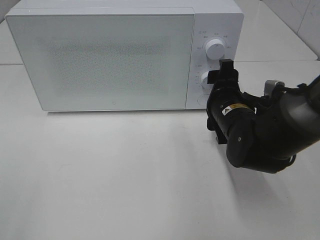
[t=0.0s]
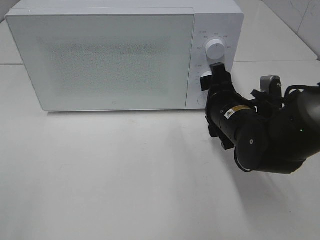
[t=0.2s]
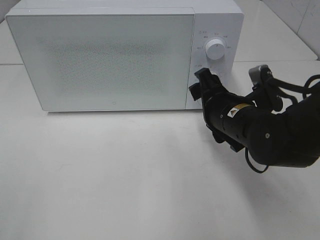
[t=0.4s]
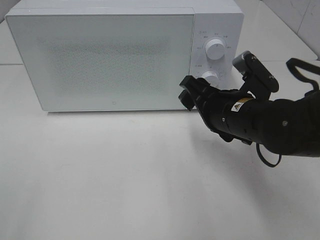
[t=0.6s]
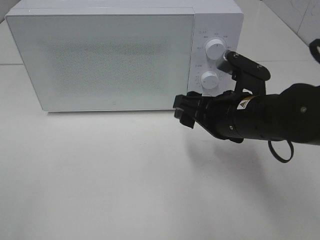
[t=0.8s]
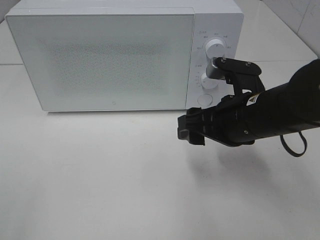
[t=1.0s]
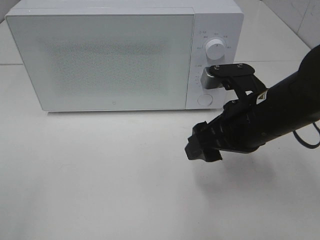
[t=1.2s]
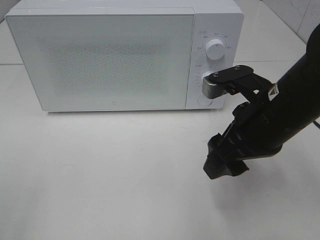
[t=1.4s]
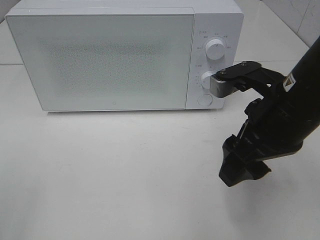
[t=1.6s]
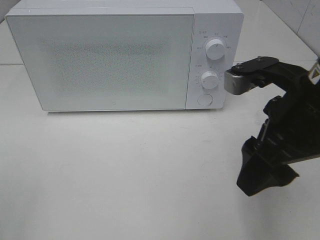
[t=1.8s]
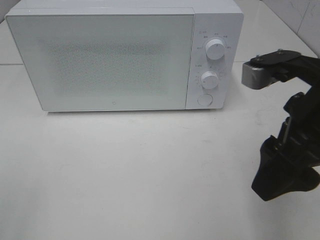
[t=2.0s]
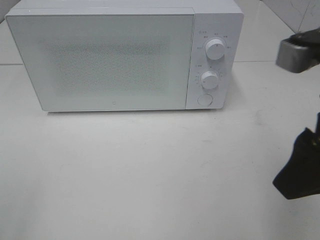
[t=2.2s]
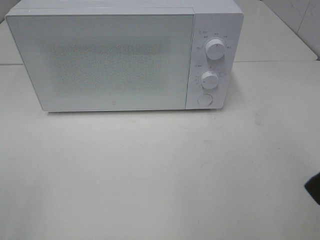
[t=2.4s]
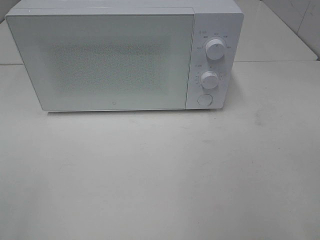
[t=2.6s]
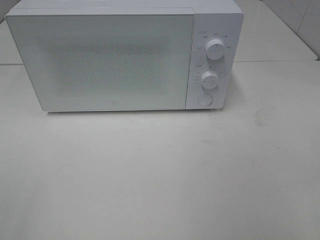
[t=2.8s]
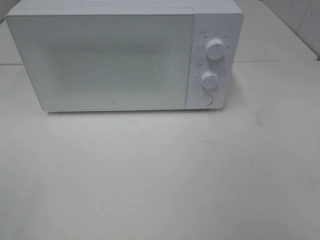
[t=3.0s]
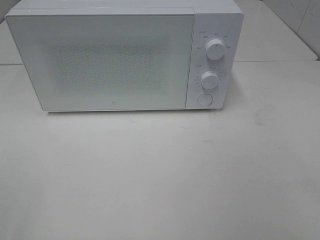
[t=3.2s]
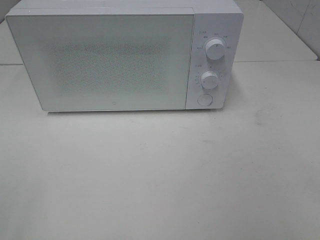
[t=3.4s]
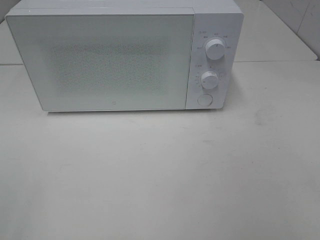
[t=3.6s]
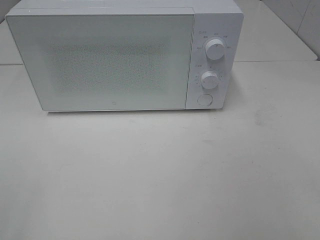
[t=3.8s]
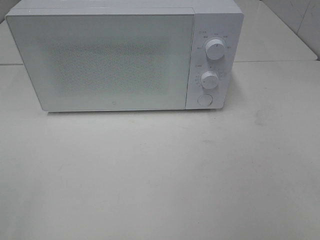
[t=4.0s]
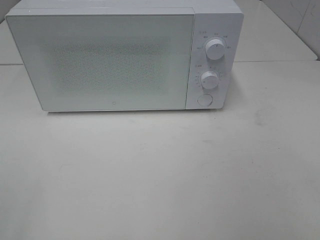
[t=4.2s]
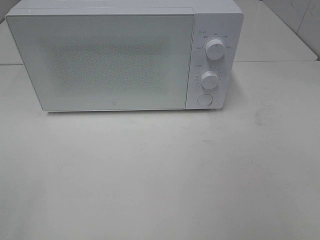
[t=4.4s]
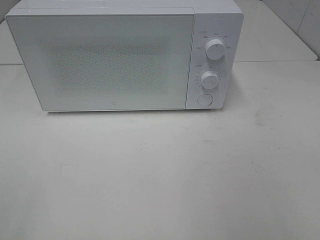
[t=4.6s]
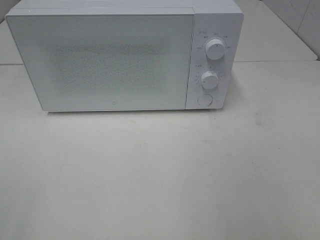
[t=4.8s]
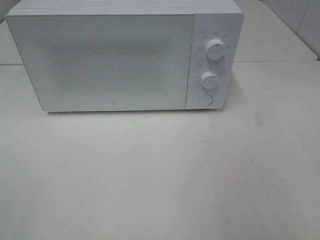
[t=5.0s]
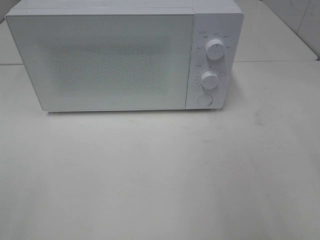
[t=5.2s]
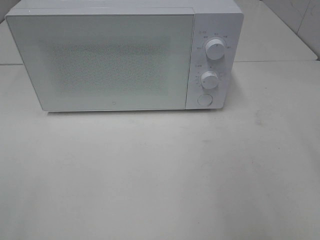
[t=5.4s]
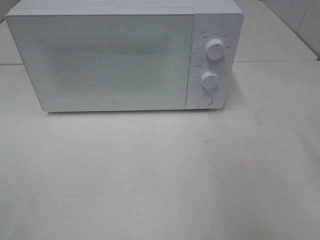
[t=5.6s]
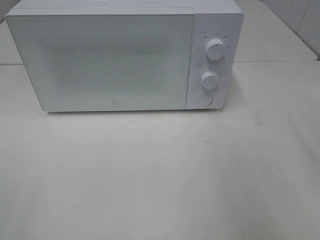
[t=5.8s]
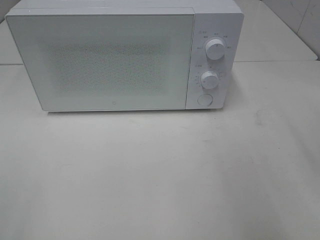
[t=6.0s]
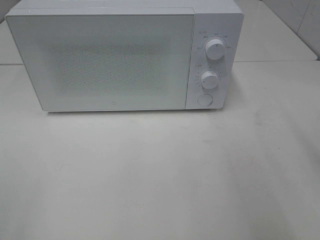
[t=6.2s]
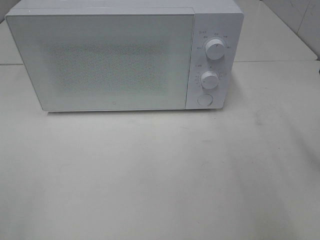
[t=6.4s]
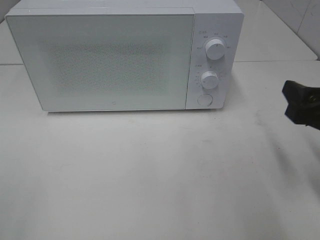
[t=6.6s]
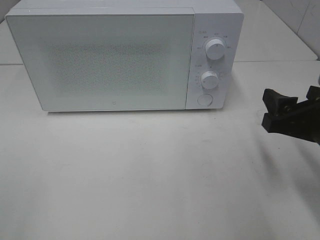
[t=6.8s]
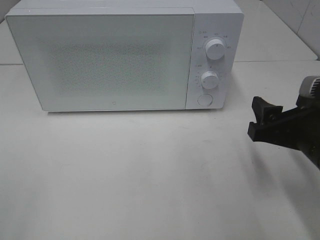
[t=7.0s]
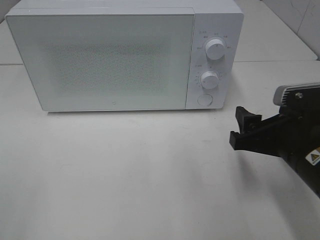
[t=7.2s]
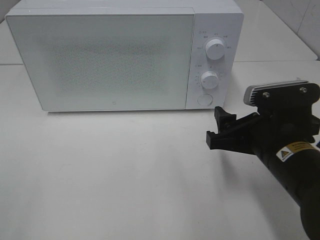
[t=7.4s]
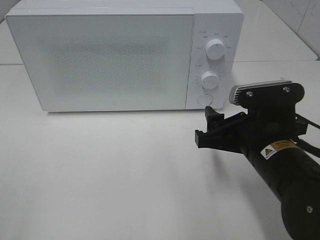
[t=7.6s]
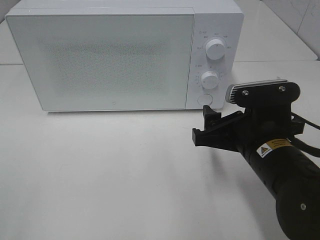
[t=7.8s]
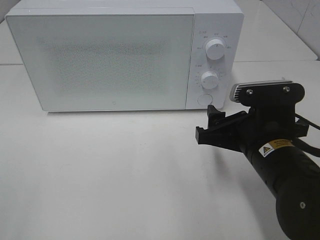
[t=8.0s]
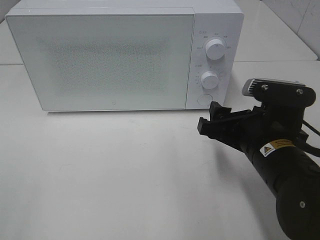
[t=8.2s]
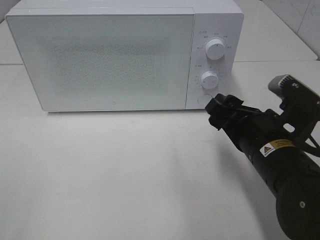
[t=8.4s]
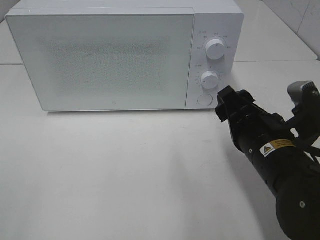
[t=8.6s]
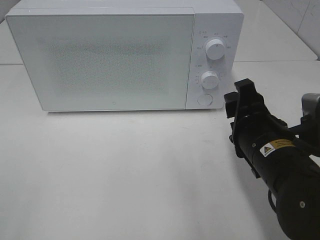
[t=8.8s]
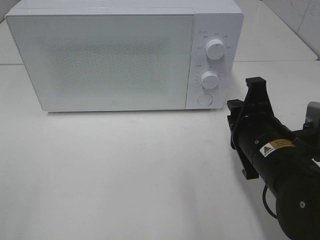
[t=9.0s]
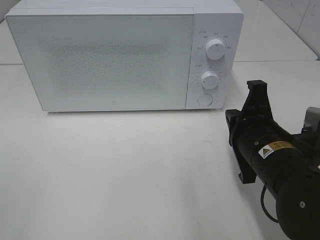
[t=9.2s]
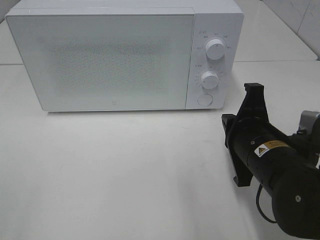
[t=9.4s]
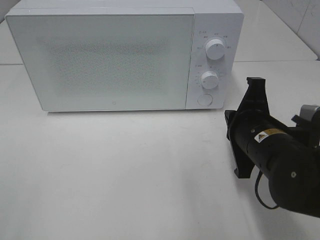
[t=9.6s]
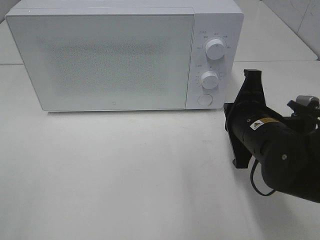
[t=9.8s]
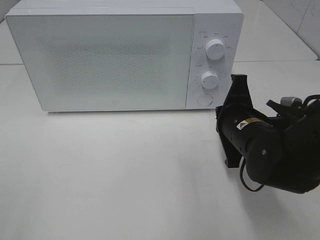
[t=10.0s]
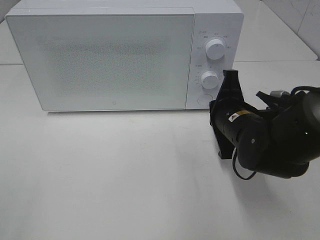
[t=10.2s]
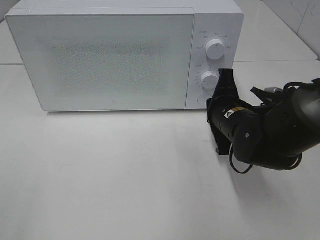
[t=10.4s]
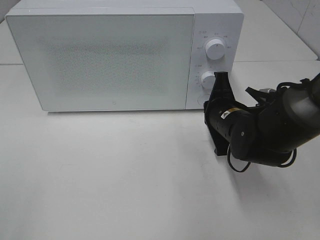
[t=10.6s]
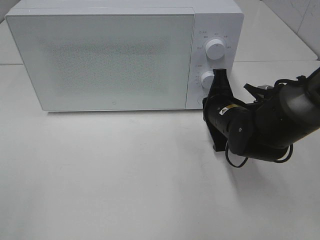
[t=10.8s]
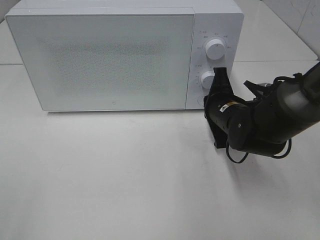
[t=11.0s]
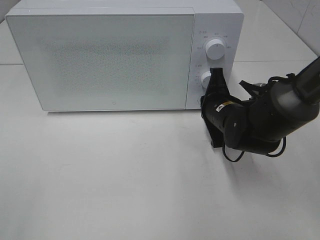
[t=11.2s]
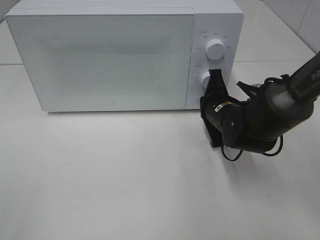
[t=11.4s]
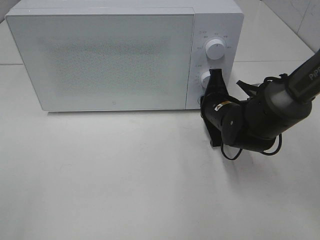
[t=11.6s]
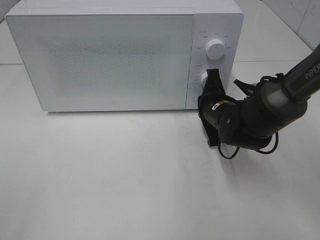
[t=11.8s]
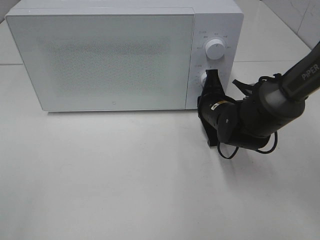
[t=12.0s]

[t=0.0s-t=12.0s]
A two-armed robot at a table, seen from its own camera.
Task of the whole recording: Heat the burger.
t=0.0s to t=1.6s: The right gripper is displaced upward and backward by about 15 cm.
t=1.6s to t=3.0s: The right gripper goes roughly 20 cm backward and to the right.
t=6.0s to t=7.6s: The right gripper travels to the left and downward by about 20 cm.
t=7.6s to t=9.0s: The right gripper closes its fingers.
t=9.0s to t=10.4s: The right gripper is displaced forward by approximately 10 cm.
t=10.4s to t=12.0s: The right gripper moves forward, approximately 5 cm.

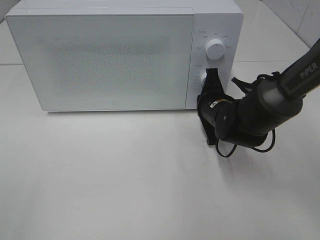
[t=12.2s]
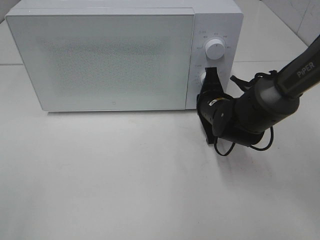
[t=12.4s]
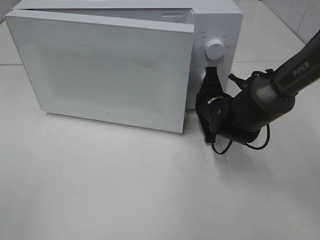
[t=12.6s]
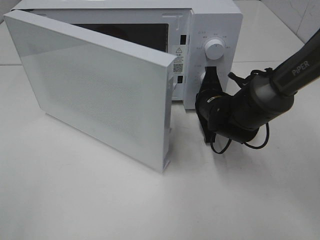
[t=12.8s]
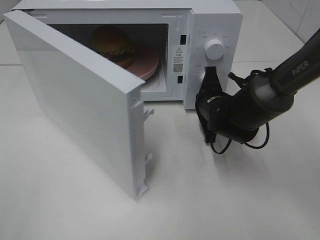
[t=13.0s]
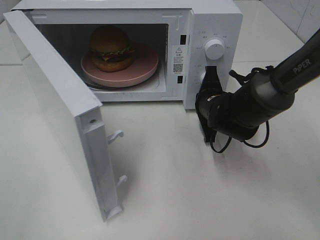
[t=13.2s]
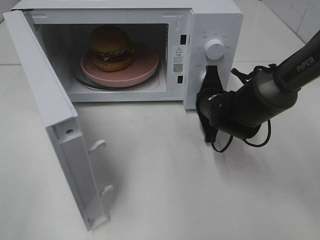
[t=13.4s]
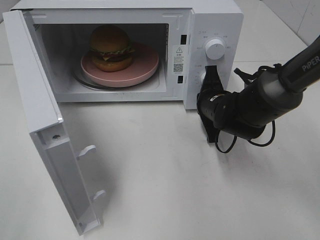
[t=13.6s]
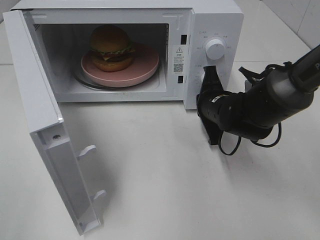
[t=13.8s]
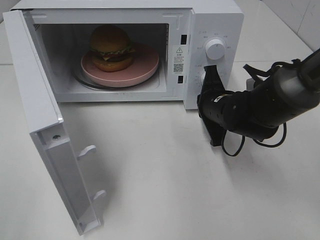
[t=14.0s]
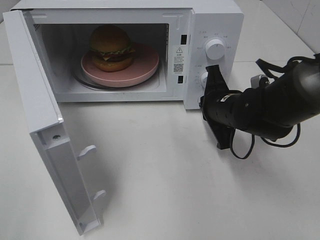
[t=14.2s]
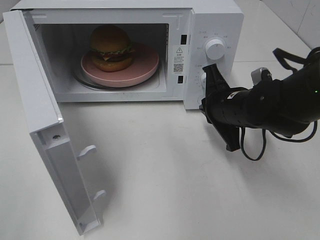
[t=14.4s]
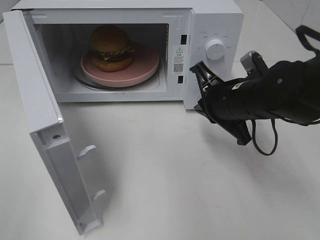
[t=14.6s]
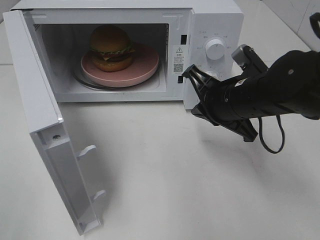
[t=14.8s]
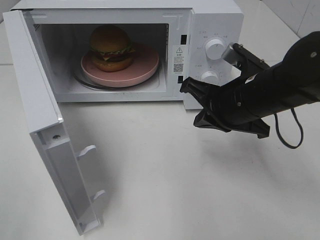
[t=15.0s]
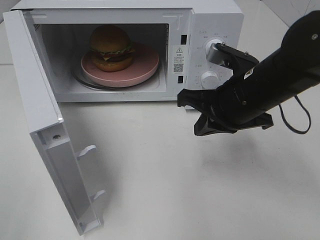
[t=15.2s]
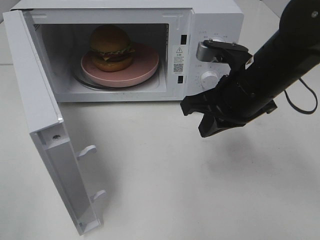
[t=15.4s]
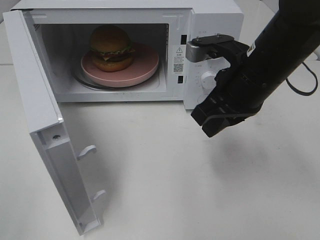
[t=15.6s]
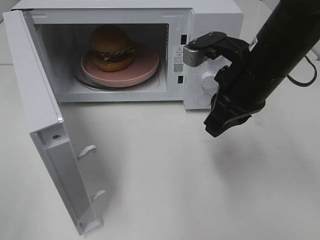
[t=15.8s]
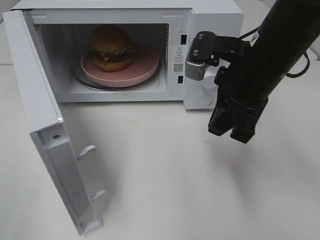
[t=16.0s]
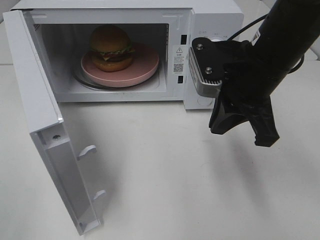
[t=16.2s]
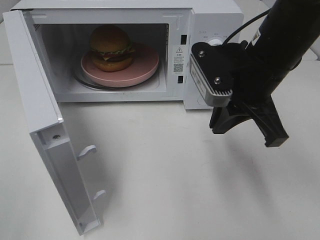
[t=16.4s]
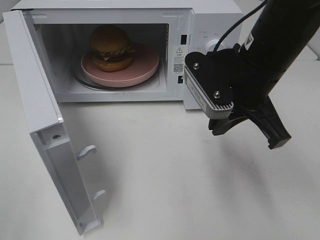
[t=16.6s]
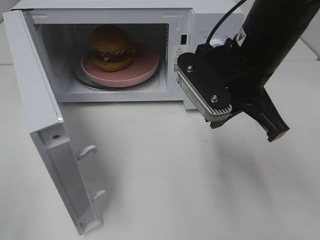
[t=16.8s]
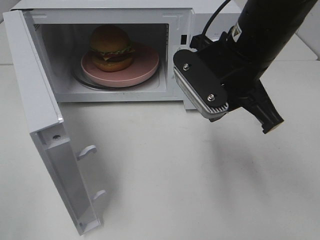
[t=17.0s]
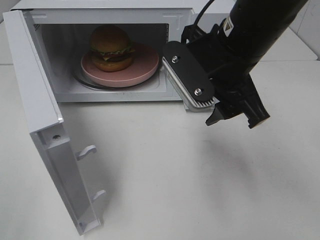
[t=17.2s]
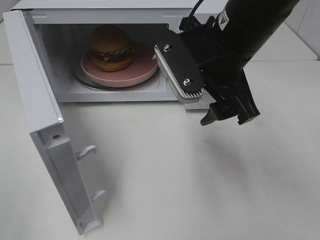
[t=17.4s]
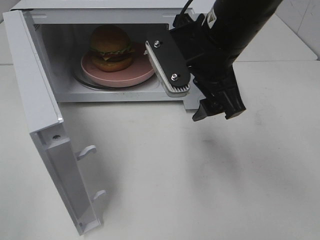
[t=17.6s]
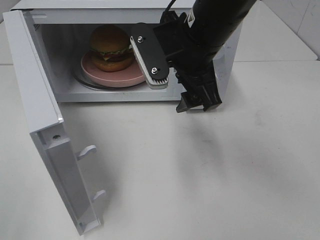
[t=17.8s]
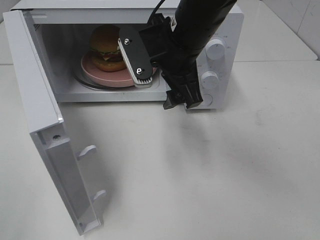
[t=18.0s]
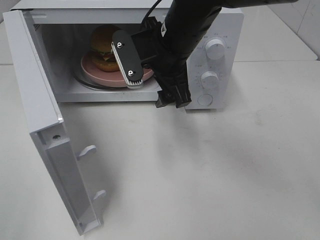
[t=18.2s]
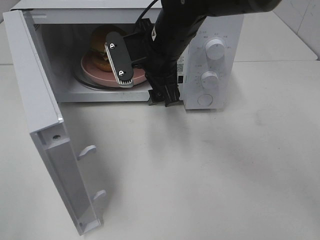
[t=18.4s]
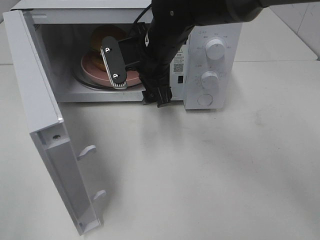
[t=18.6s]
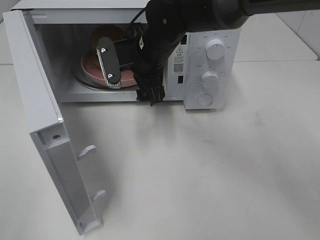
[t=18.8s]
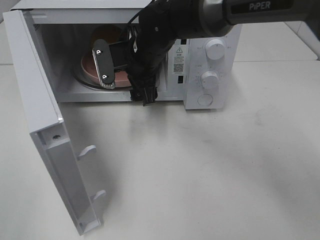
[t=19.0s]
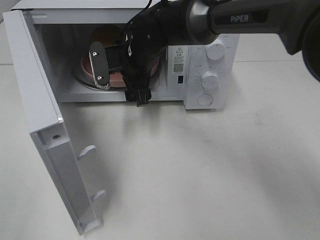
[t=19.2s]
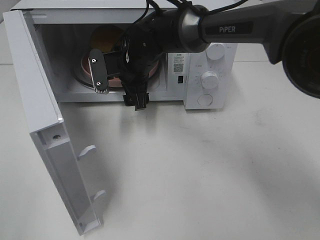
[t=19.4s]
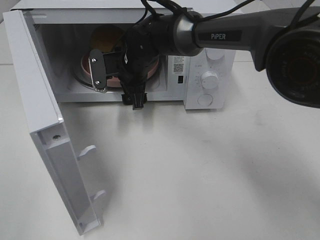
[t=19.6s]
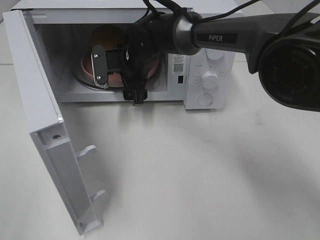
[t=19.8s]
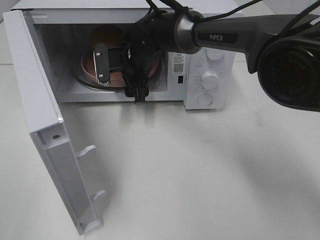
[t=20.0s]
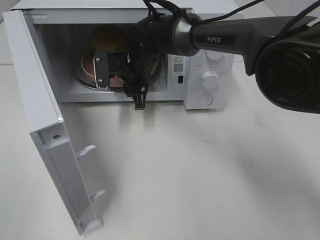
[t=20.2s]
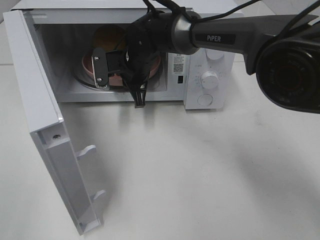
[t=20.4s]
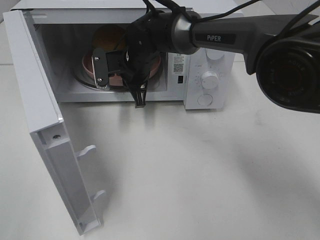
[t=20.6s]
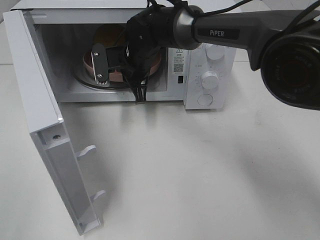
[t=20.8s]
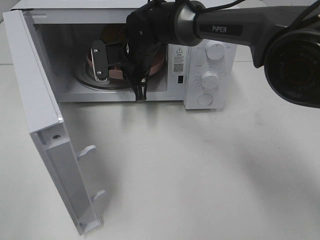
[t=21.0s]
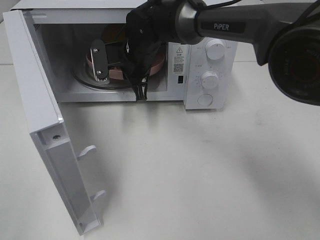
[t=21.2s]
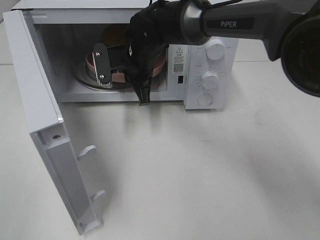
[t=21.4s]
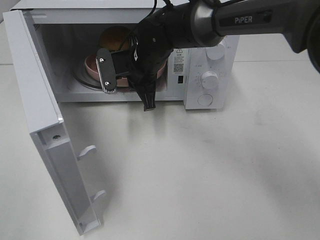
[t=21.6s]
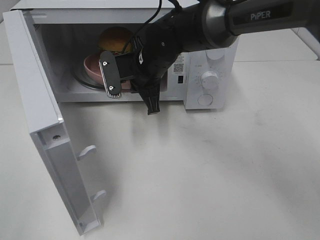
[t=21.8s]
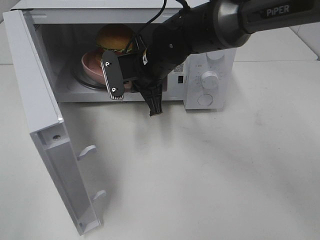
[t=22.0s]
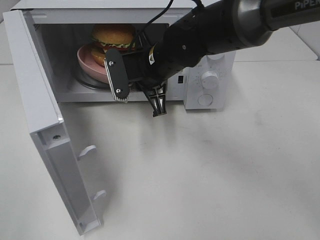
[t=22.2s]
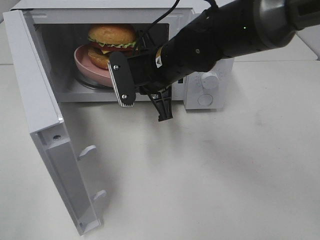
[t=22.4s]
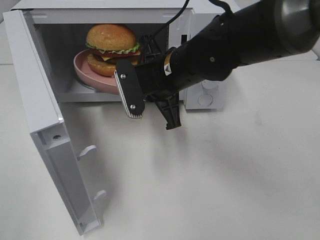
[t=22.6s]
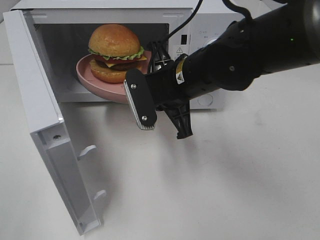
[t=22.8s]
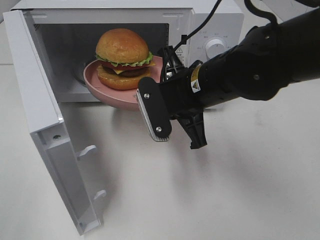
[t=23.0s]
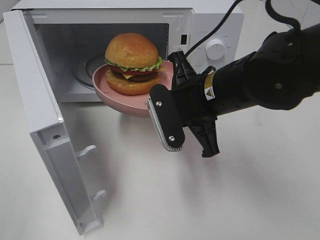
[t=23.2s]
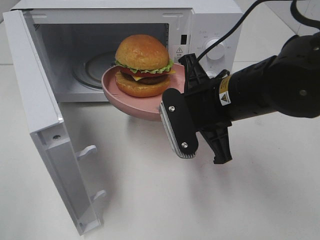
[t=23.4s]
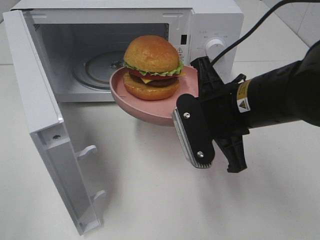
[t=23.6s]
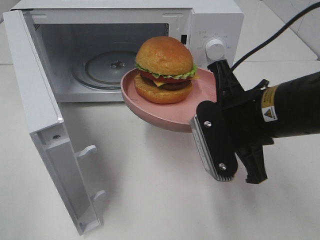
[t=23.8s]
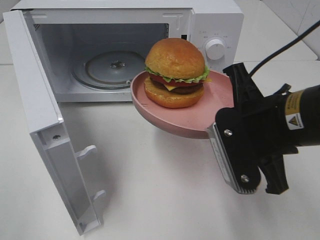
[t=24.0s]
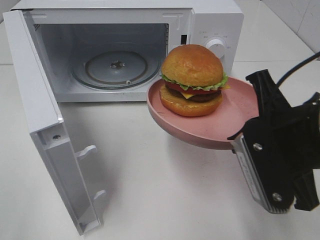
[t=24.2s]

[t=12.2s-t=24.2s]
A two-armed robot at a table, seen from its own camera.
Task of the whole recording: Heat the burger.
Step, t=14.2s to t=20.8s: Right hand: grab the plate with the hamburger.
t=13.8s to t=15.2s: The right gripper travels upward and backward by approximately 15 cm.
t=15.2s to t=16.6s: The right gripper moves upward, roughly 5 cm.
t=16.6s to t=18.2s: The right gripper heads to the left and forward, covering some 10 cm, and opens up.
t=18.2s to t=19.8s: The right gripper travels forward, downward and to the left by about 15 cm.
t=19.8s to t=21.2s: The right gripper closes its fingers.
t=21.2s to t=22.6s: The right gripper moves backward and to the right, some 15 cm.
t=22.6s to t=24.2s: The right gripper goes approximately 20 cm backward and to the right.
